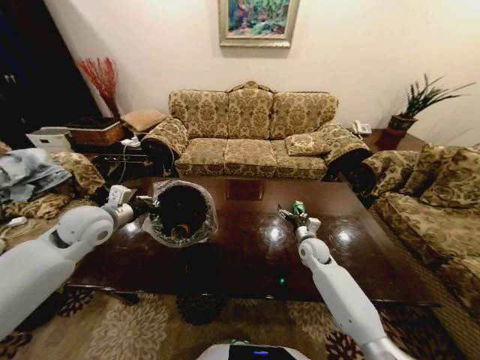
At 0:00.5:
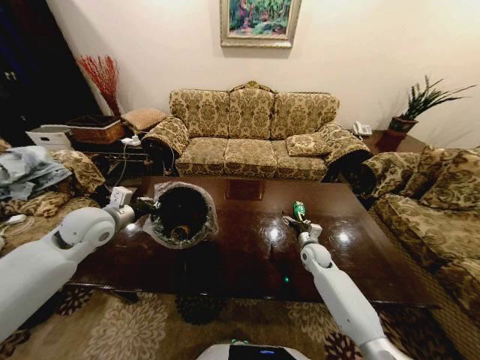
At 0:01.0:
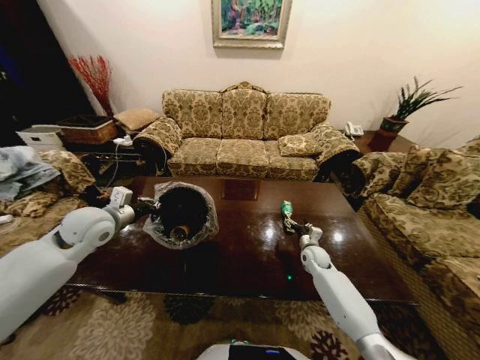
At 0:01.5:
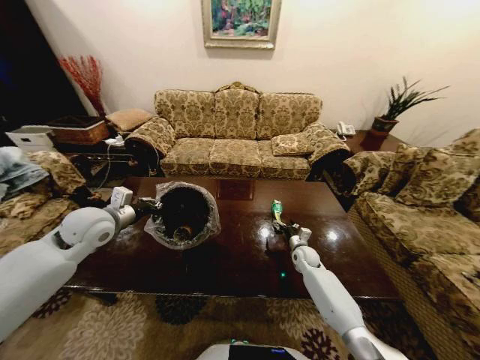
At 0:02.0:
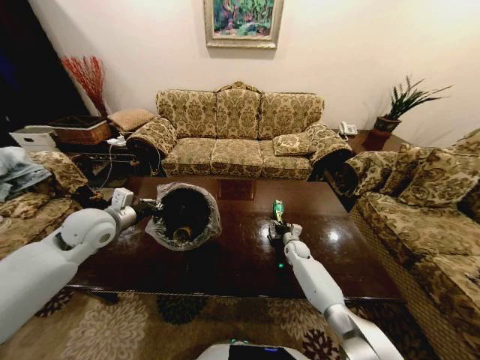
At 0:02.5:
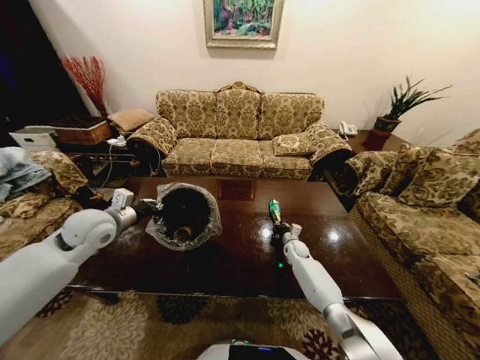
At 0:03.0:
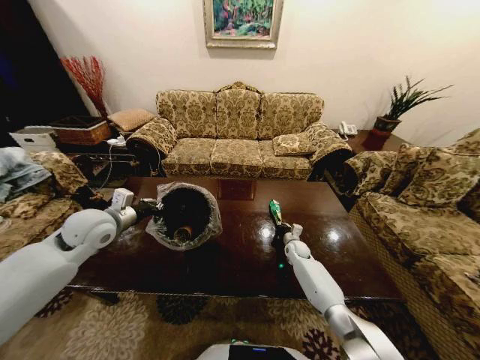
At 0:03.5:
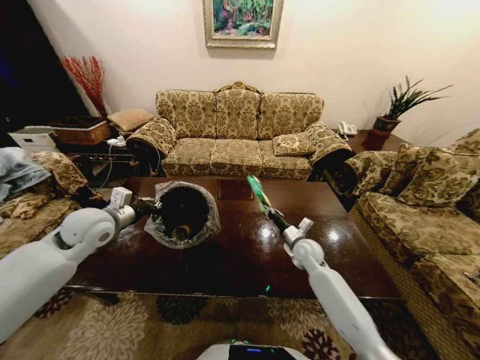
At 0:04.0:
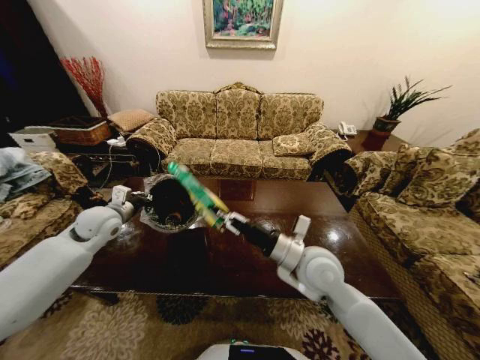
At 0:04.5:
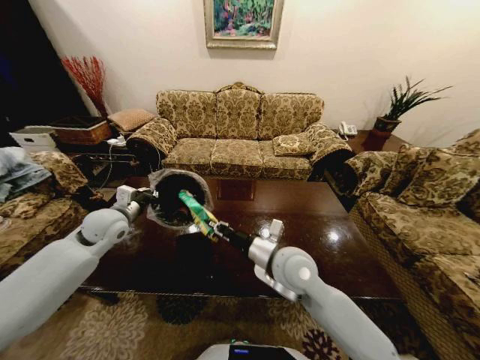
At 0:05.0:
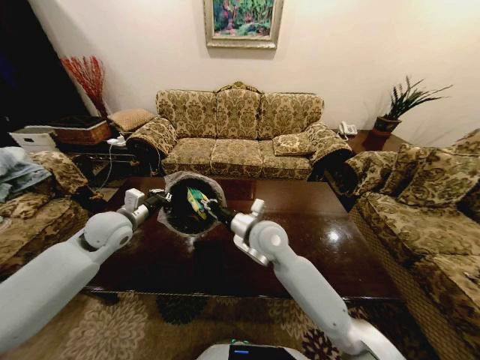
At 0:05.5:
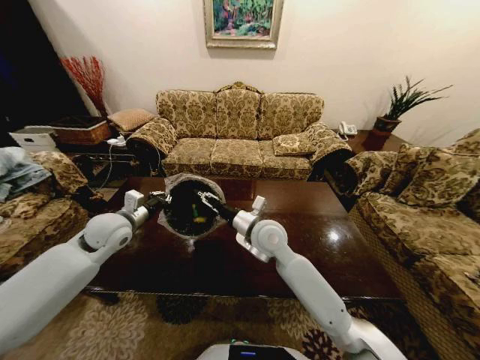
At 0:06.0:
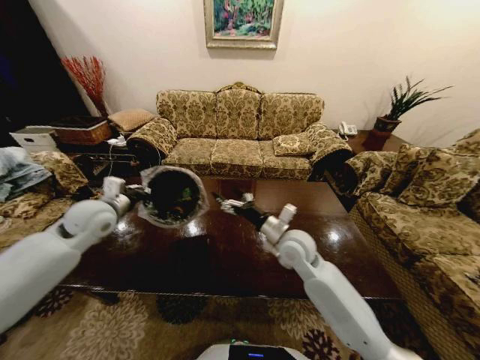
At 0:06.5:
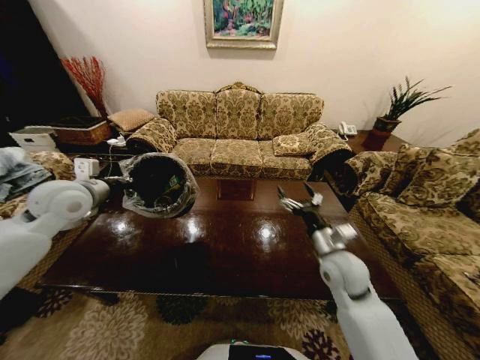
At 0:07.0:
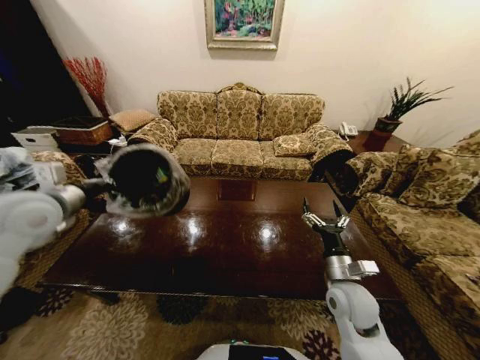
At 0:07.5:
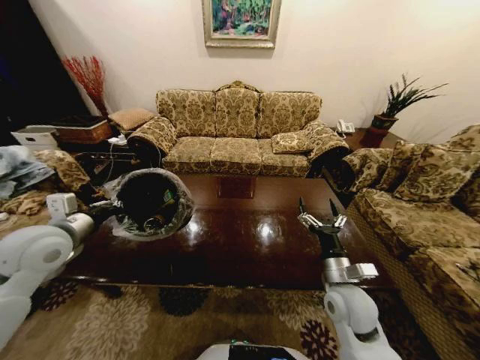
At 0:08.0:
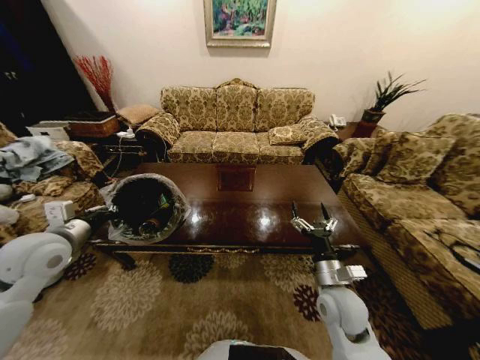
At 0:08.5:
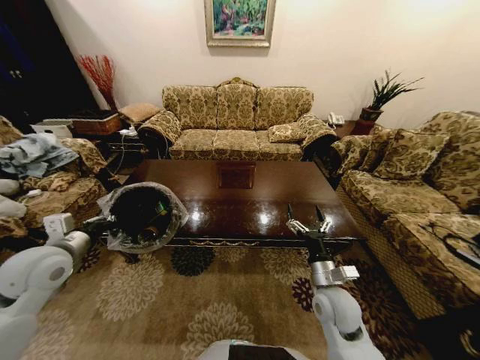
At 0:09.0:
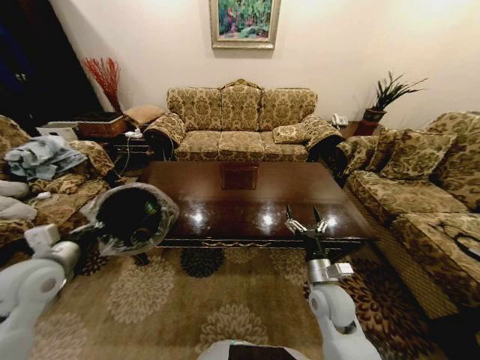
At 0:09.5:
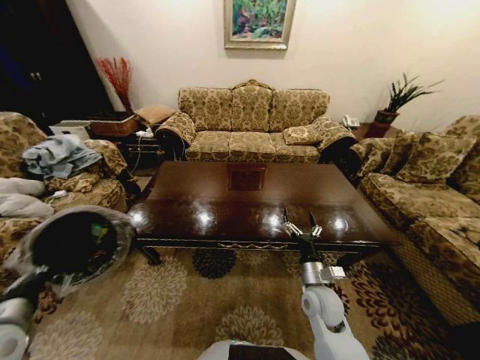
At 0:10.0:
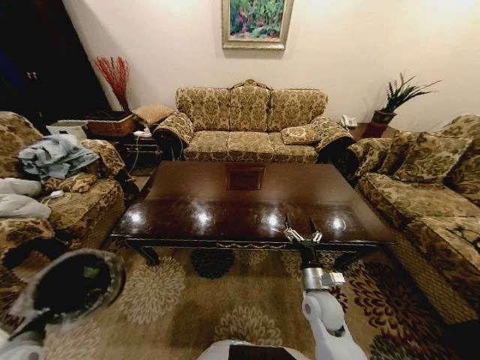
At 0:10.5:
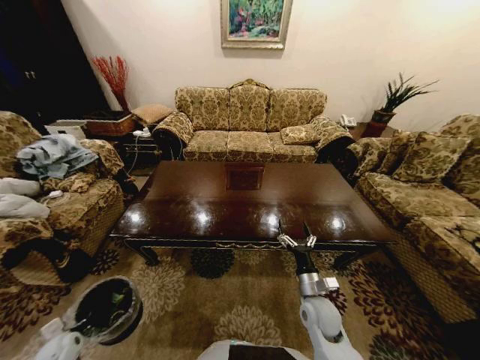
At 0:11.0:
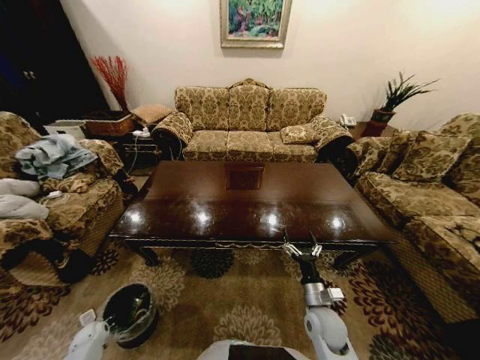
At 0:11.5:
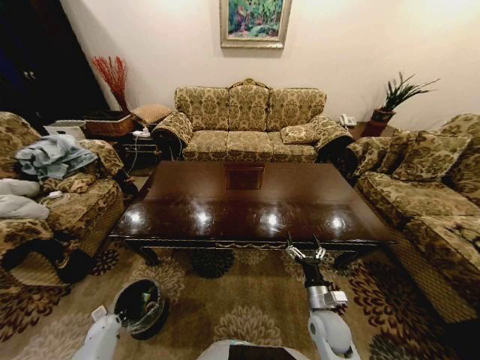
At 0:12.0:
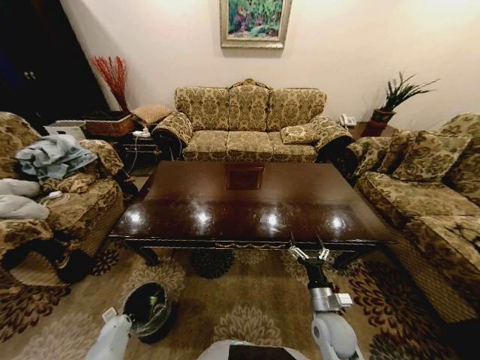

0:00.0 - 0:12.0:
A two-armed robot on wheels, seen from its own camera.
Task of the whole recording: Move to the front of the table and place the trash on the table into the trash bin.
0:00.0 - 0:02.0: The right gripper is displaced downward and forward by about 10 cm.
0:02.0 - 0:04.0: The right gripper goes roughly 35 cm upward and backward, and closes, while the left gripper moves approximately 5 cm.
0:04.0 - 0:06.0: The right gripper heads forward, covering approximately 5 cm, travels to the left and back again, about 10 cm each way, and opens its fingers.
0:06.0 - 0:08.0: The right gripper goes roughly 15 cm backward, to the right and downward, while the left gripper is displaced backward by about 10 cm.
0:08.0 - 0:10.0: The right gripper goes some 10 cm downward; the left gripper goes roughly 25 cm downward and backward.
0:10.0 - 0:12.0: The right gripper shifts by roughly 5 cm, while the left gripper moves downward, roughly 30 cm.

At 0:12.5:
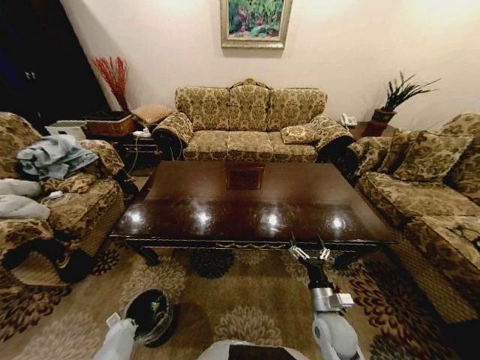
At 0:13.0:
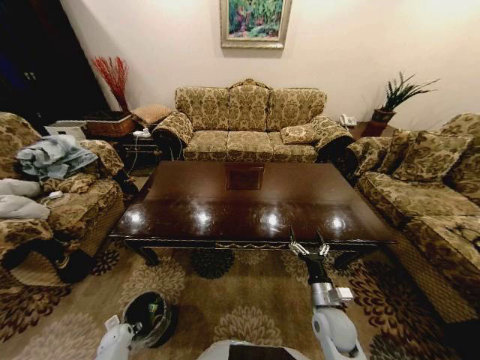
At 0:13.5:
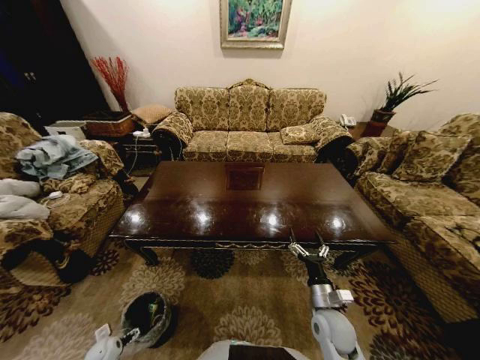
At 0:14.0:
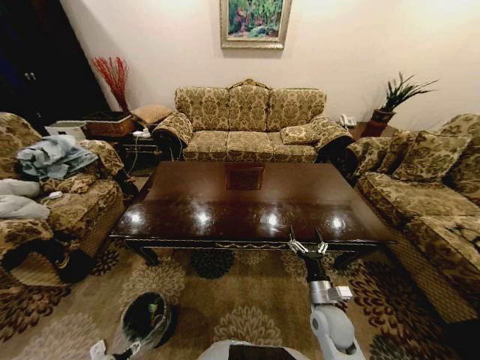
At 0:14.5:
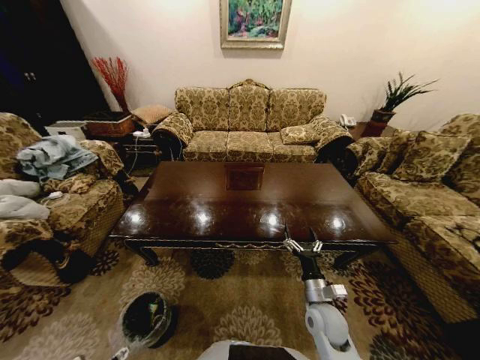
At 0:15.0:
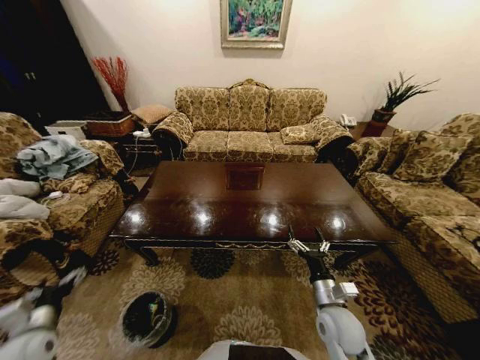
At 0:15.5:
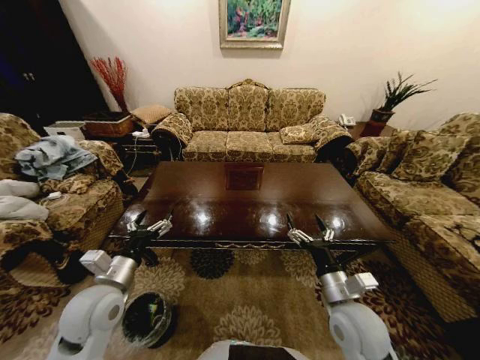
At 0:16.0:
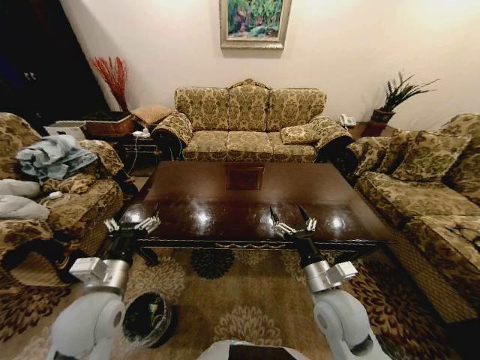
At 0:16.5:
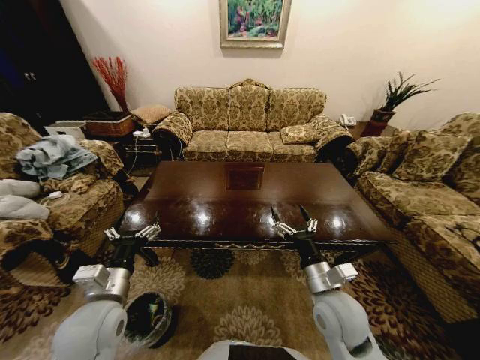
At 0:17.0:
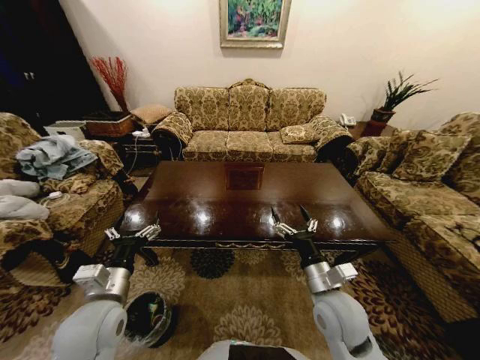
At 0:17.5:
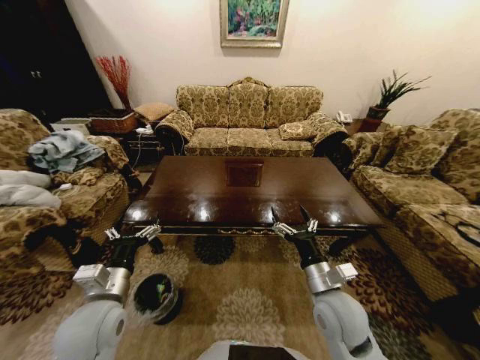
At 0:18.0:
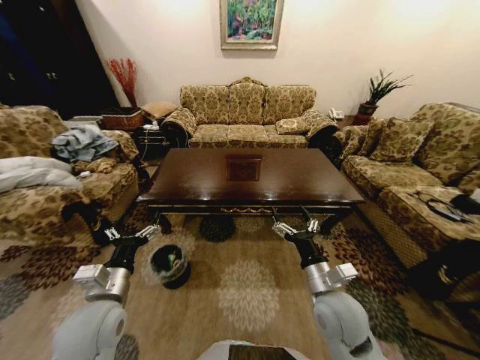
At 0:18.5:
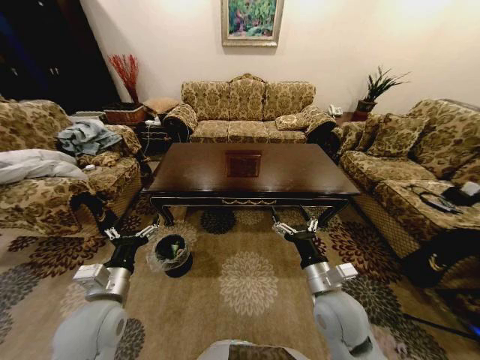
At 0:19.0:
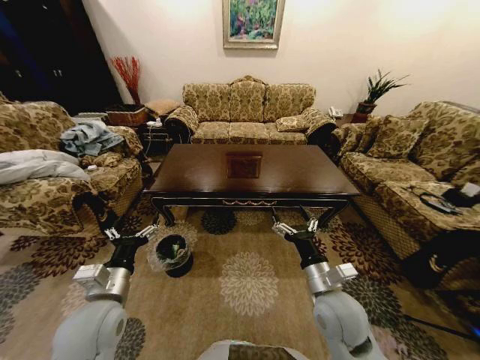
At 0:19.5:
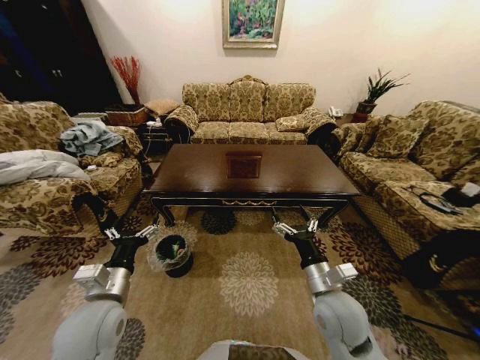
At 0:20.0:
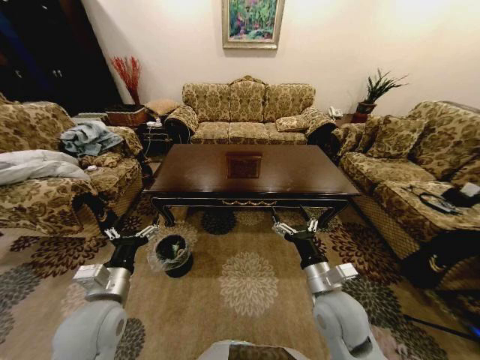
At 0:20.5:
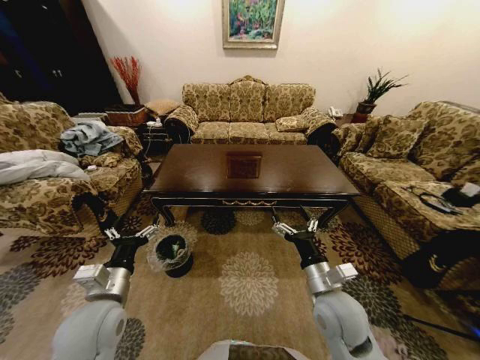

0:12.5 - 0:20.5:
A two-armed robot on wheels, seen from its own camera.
Task of the whole recording: Move to the front of the table and place the trash on the table into the trash bin.
0:12.5 - 0:14.5: The left gripper goes approximately 20 cm backward and upward, and opens its fingers.
0:14.5 - 0:16.5: The left gripper travels upward, to the right and forward by roughly 35 cm, while the right gripper travels upward by some 15 cm.
0:18.5 - 0:20.5: Both grippers stay about where they are.

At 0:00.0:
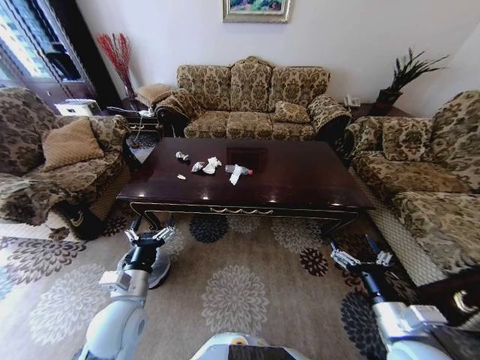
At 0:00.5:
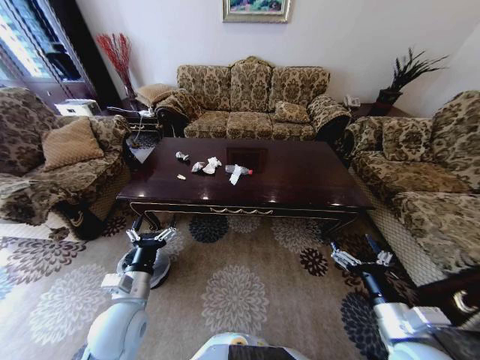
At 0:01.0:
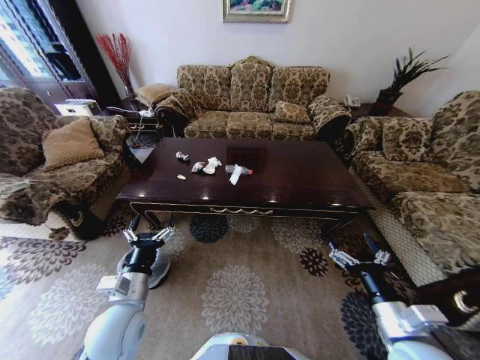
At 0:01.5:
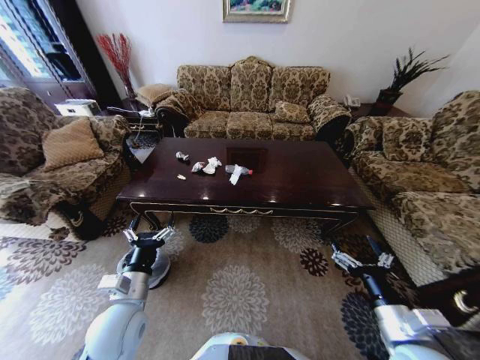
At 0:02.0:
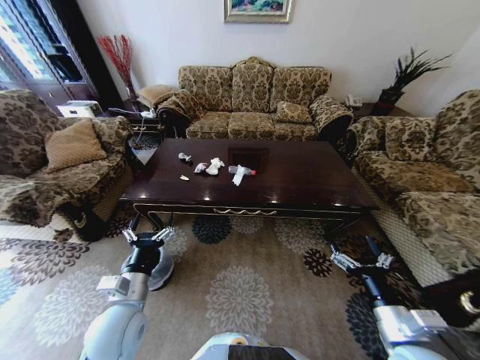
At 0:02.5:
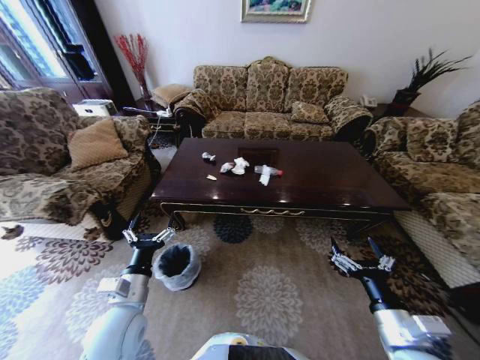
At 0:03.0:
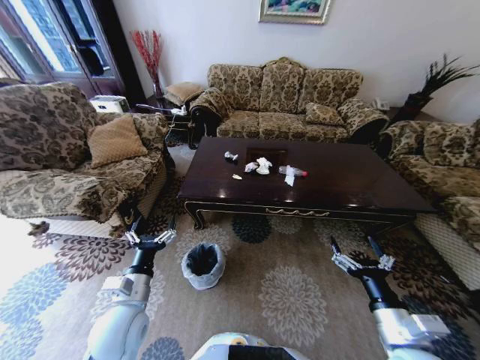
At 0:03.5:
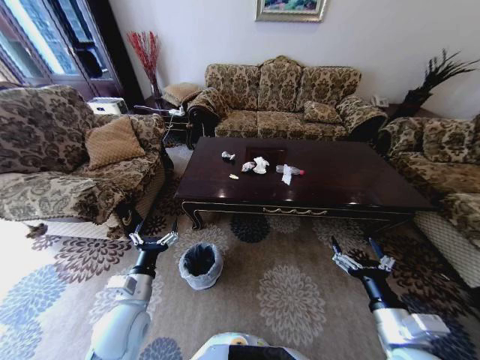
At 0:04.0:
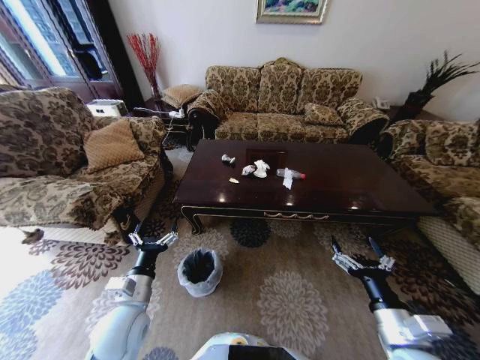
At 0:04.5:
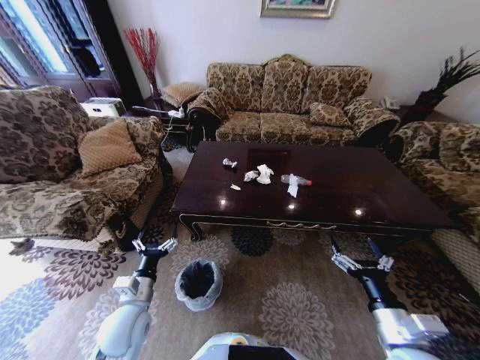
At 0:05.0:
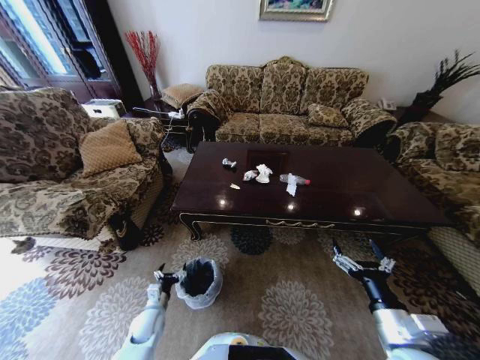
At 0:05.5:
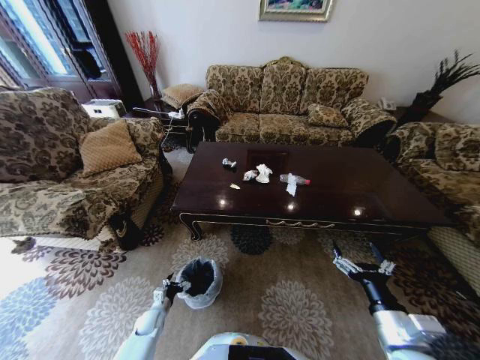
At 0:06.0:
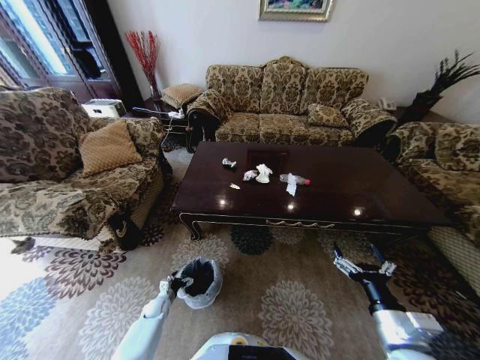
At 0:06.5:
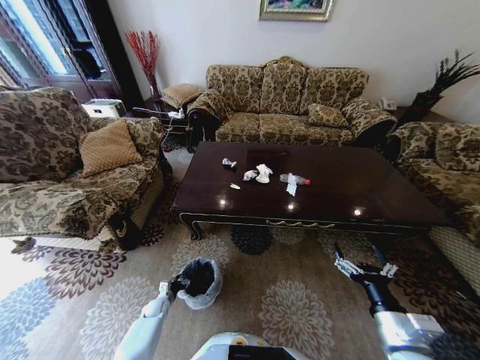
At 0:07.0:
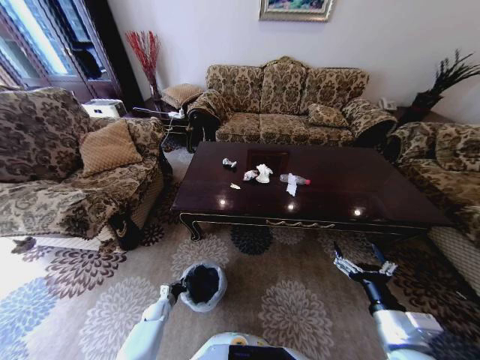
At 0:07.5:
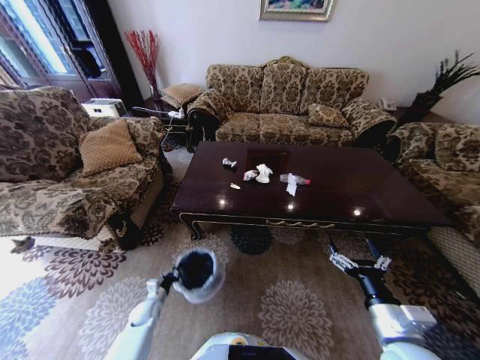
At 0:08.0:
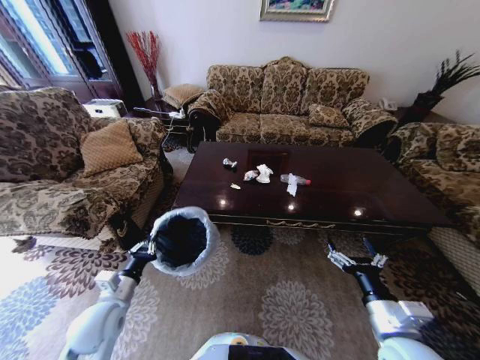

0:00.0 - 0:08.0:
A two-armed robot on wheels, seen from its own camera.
Task of the whole recording: Move to the front of the table and place the trash on the table into the trash bin.
0:04.0 - 0:06.0: The left gripper shifts some 35 cm downward.
0:06.0 - 0:08.0: The left gripper travels upward by approximately 35 cm, and closes its fingers.
